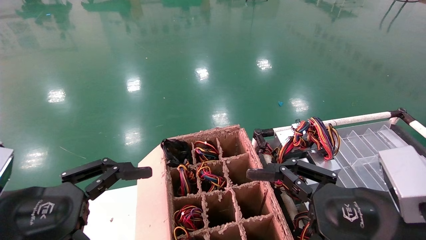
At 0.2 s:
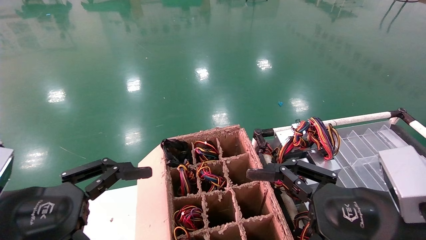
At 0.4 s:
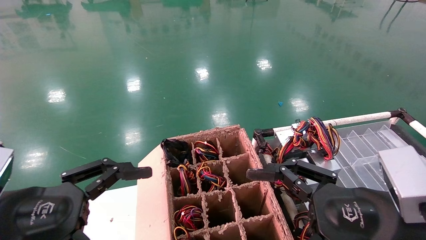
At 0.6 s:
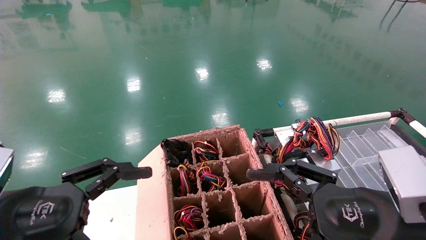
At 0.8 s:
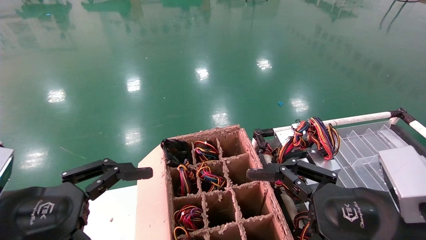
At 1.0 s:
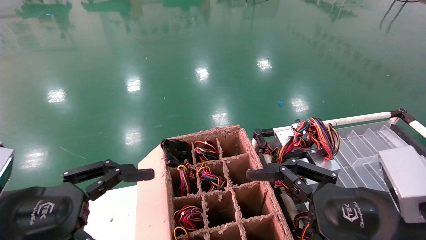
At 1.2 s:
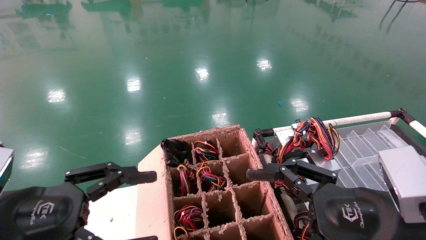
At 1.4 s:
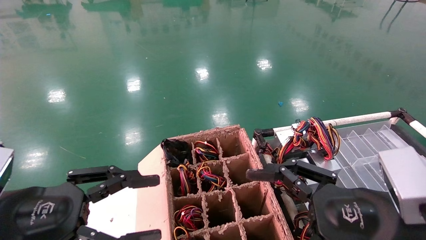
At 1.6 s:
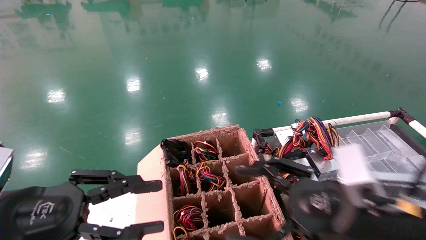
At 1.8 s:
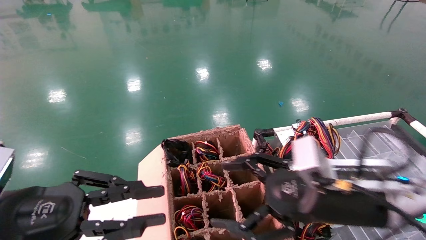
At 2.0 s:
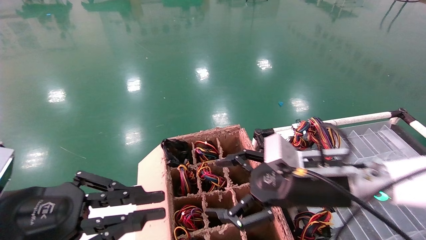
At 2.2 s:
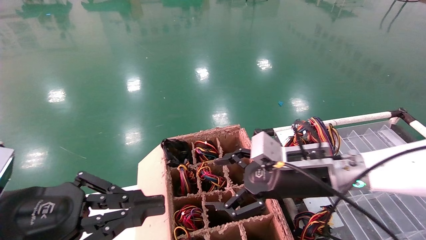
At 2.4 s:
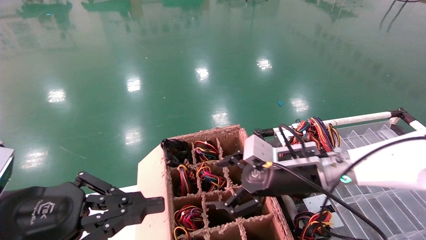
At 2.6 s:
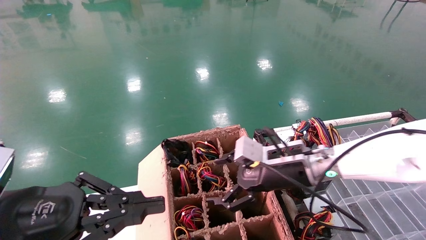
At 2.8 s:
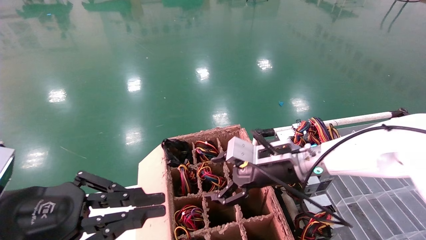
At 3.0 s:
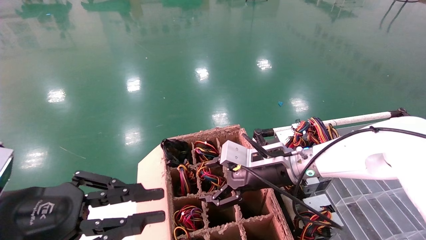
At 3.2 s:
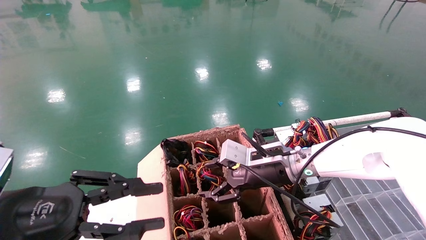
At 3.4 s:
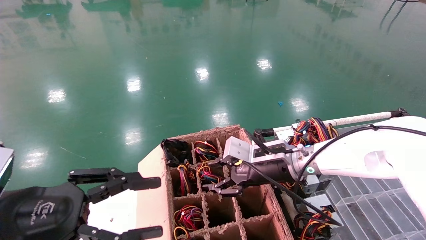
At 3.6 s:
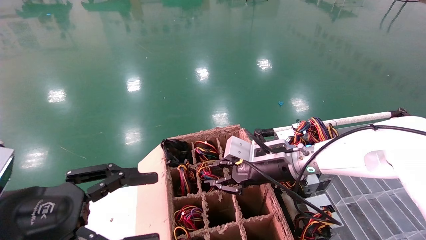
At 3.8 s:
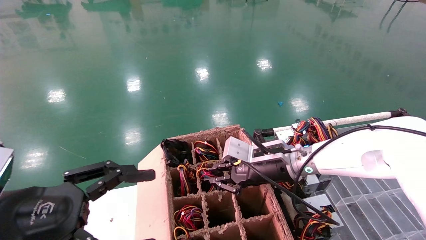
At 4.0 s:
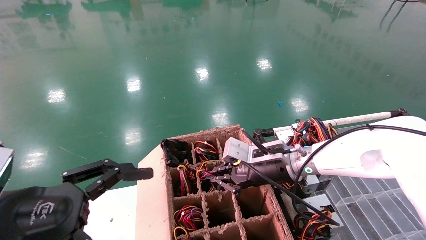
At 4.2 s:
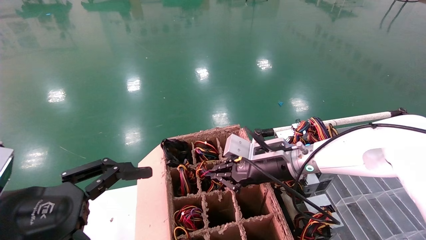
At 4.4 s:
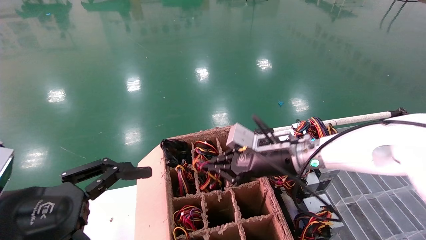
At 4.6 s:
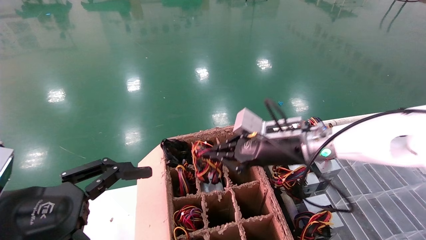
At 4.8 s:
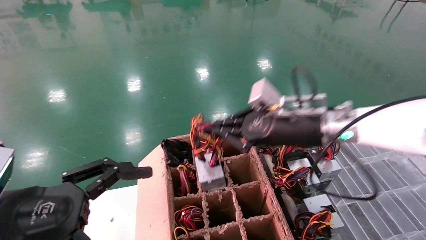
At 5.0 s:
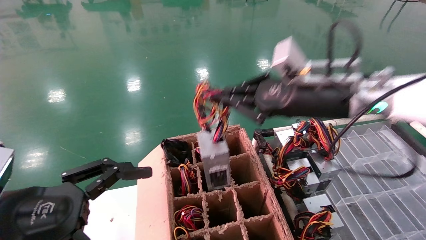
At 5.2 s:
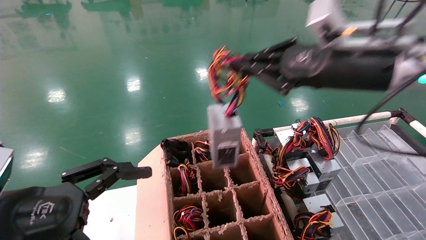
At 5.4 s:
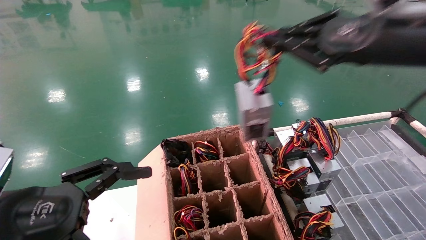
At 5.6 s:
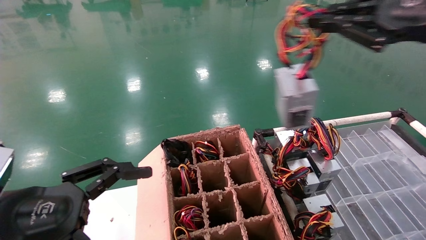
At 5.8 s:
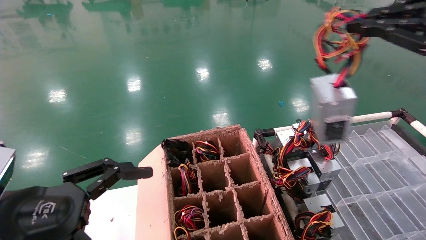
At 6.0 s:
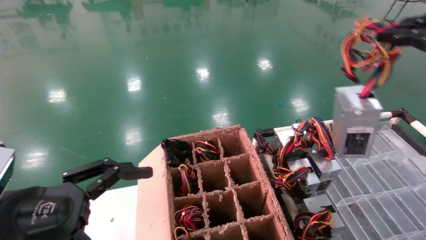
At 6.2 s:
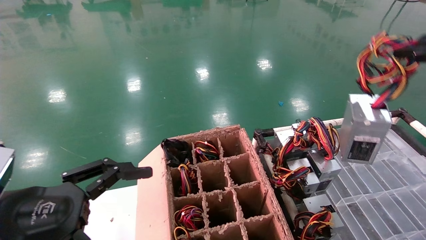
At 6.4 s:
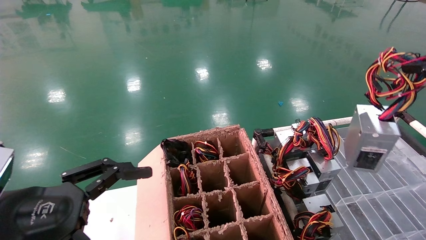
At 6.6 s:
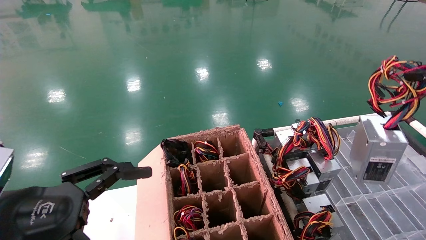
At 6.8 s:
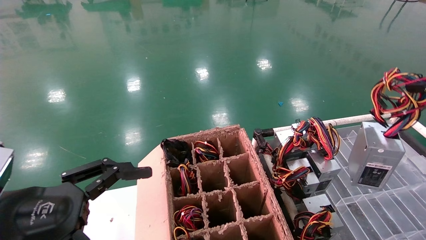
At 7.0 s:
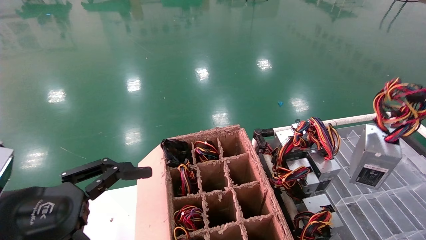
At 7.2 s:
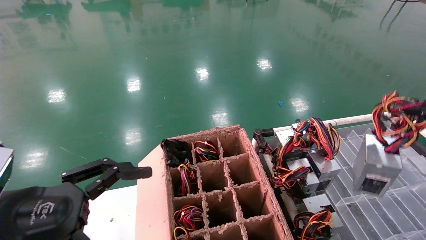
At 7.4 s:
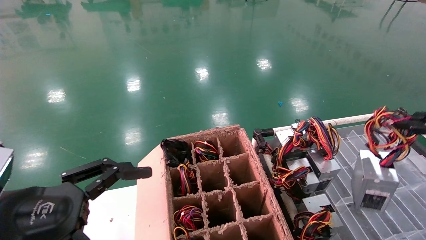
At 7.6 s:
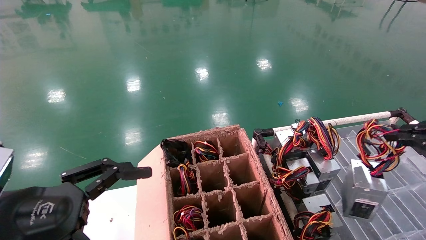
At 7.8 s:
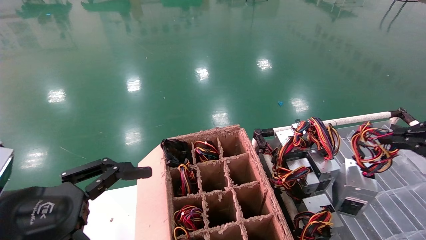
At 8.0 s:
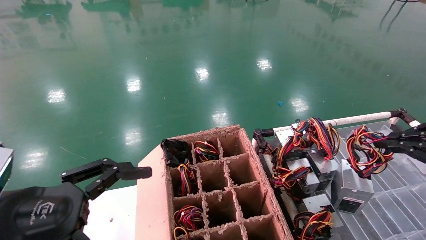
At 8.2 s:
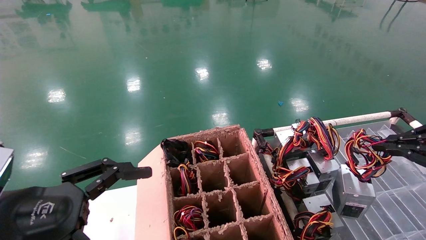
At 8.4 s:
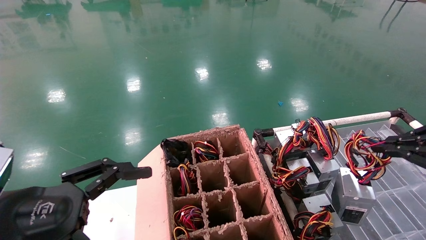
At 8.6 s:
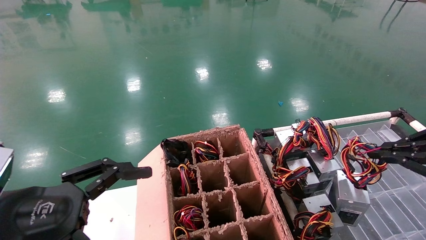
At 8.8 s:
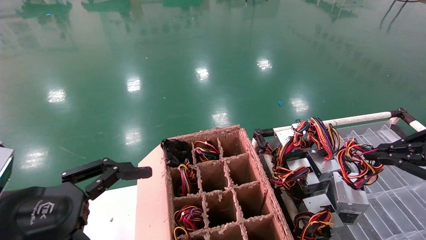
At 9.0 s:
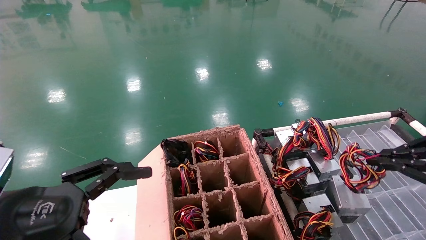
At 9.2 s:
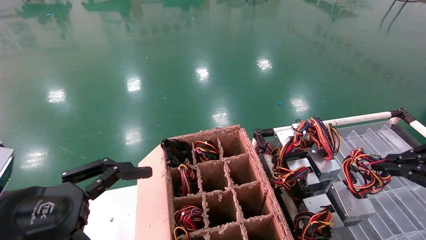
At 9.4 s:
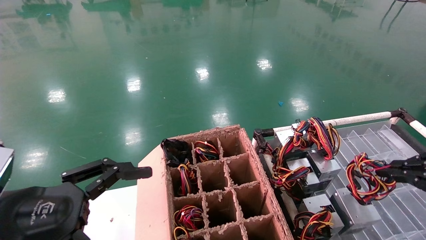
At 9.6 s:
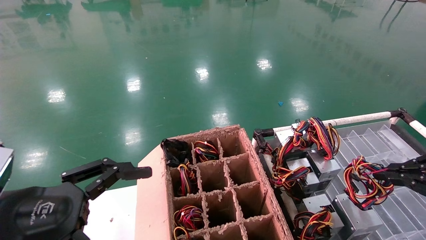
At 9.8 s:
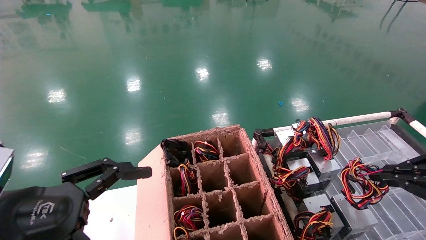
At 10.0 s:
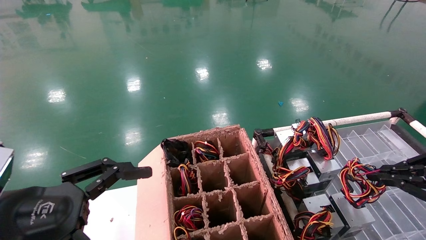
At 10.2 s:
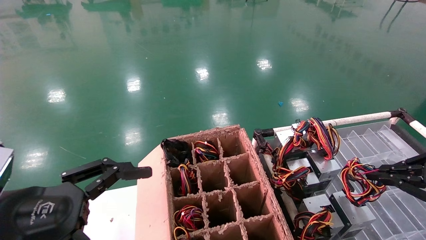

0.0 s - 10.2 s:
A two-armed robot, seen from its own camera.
Step, 1.2 s - 4.2 s: Grab and lift the power supply from the large box.
0.0 s - 1.4 s: There are only small adjustments of the grippers.
1.4 s - 3.0 s: The left gripper closes up. Meanwhile the right gripper shifts some 20 cm forward and to the left.
3.0 s - 4.4 s: The left gripper opens its fingers; the right gripper closes up.
4.4 s - 5.8 s: The right gripper shifts about 35 cm upward, to the right and backward.
5.8 s - 7.2 s: The right gripper heads downward and to the right, covering some 15 cm.
7.2 s - 8.8 s: The right gripper moves downward, some 5 cm.
8.8 s - 10.2 s: The grippers stay close to where they were, moving slightly.

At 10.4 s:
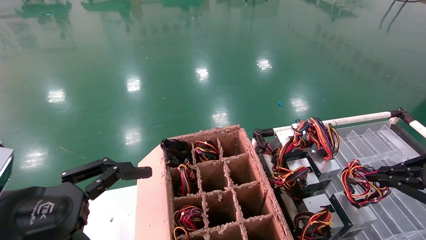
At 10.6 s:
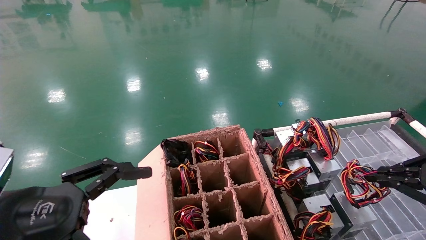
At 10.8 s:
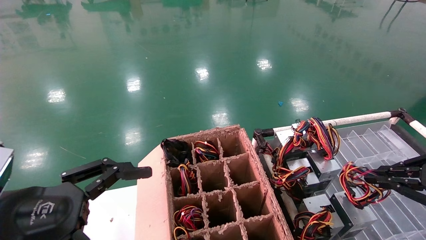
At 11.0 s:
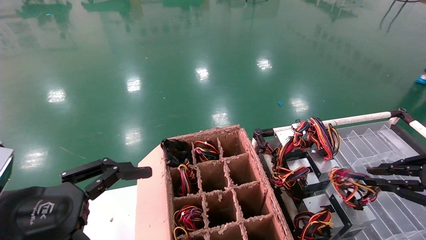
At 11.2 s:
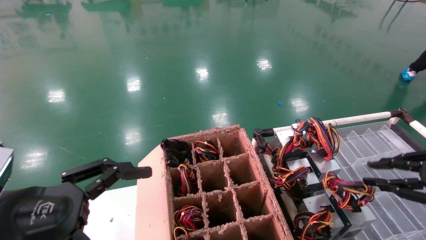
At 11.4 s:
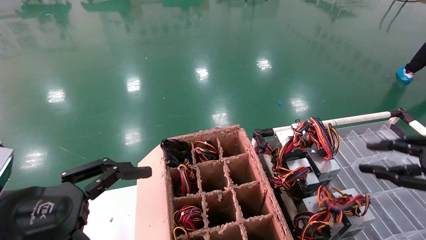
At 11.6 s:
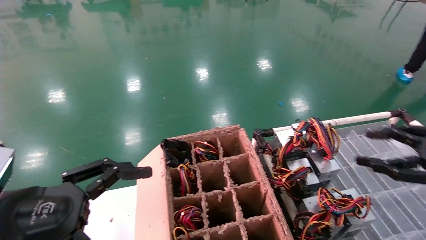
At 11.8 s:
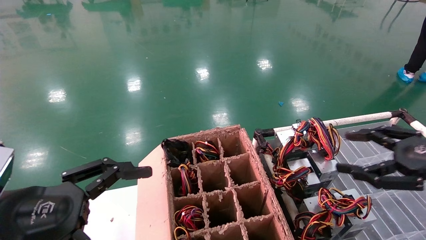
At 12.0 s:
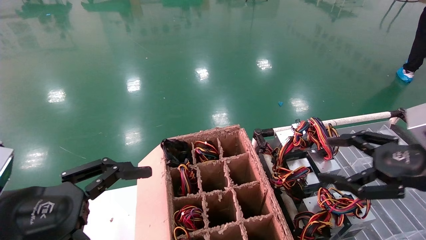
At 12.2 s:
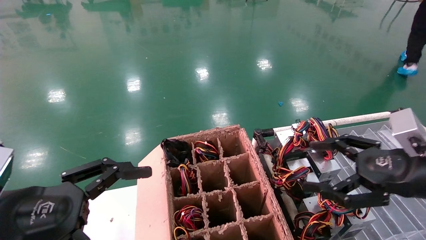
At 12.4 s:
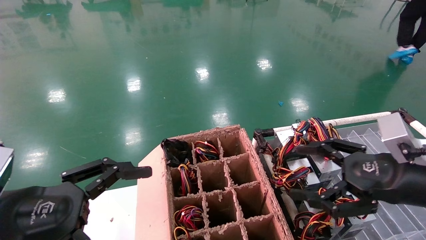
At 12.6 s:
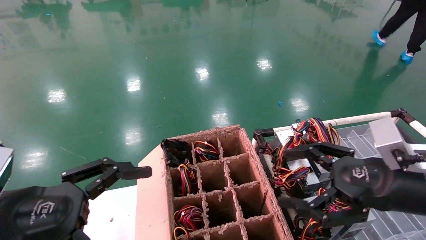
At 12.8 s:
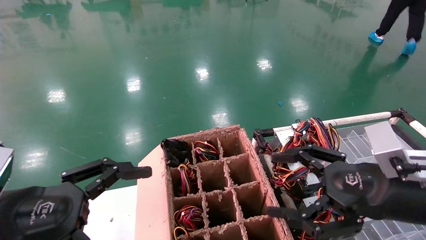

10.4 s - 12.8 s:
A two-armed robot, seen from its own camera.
10.4 s - 11.6 s: The right gripper opens up.
11.6 s - 12.8 s: The right gripper moves to the left, roughly 15 cm, and opens.
